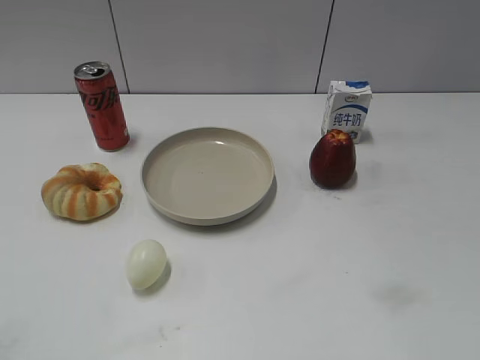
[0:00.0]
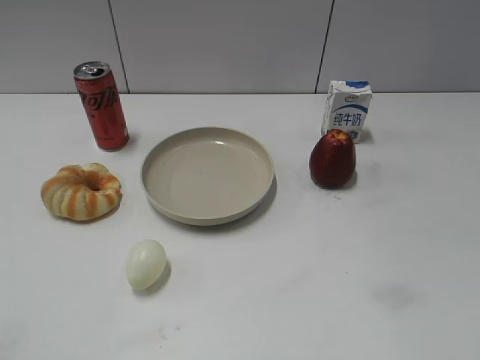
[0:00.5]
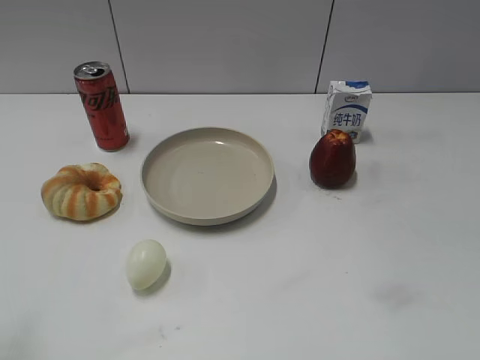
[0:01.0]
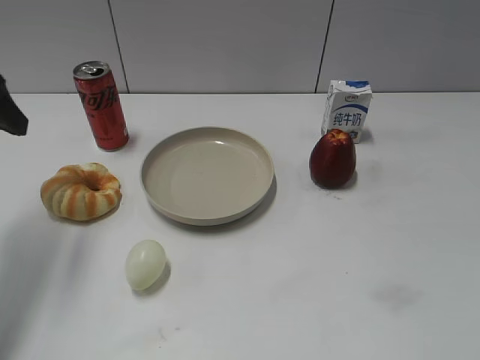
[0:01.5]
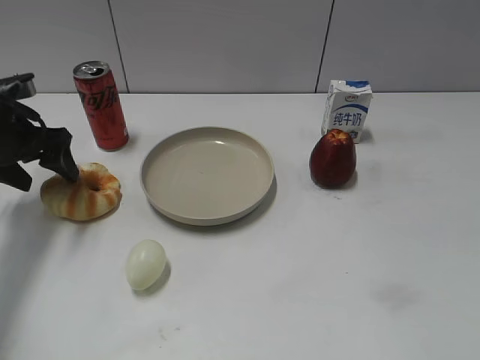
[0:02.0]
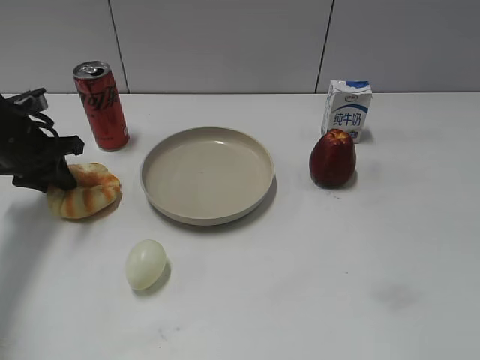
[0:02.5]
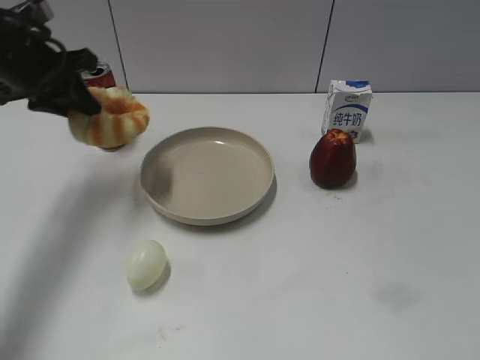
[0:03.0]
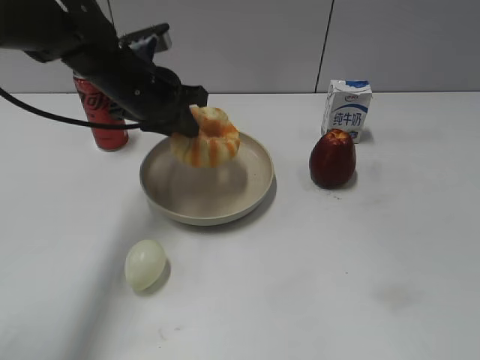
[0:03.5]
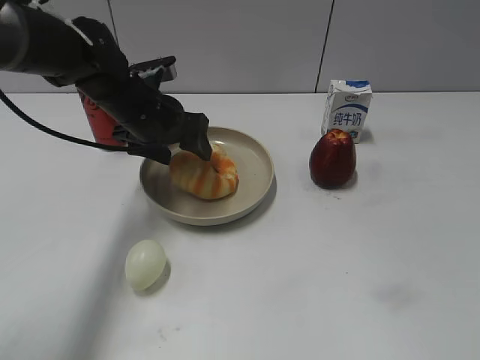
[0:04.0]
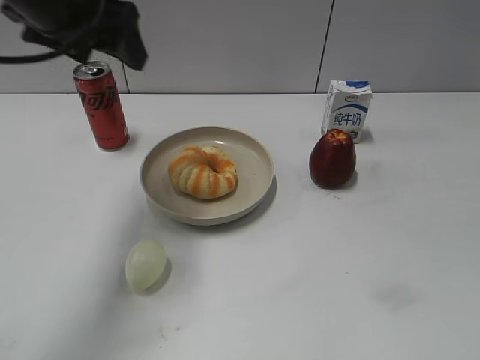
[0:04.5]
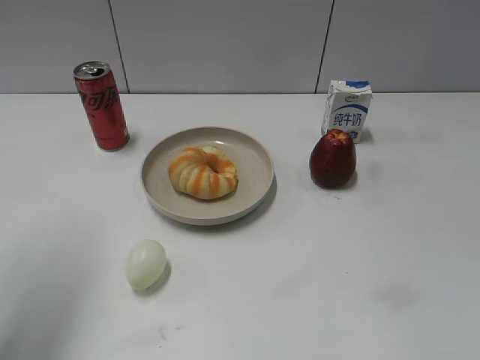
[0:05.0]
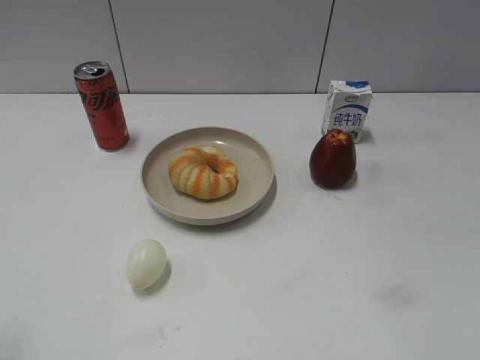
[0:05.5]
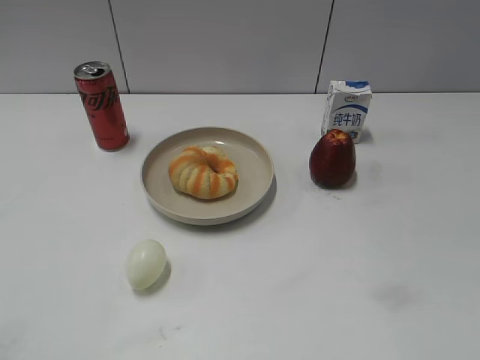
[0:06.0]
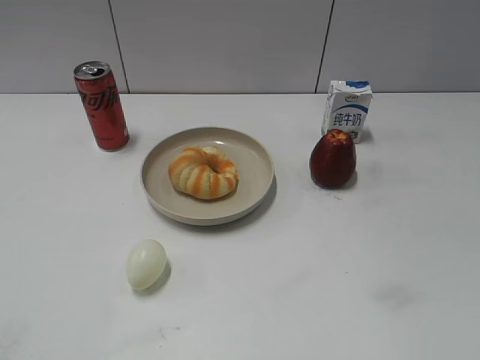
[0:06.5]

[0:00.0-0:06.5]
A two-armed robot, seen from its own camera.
Step, 0:01.0 to 0:02.0: Grasp the round bread with left gripper.
Step, 0:02.5 to 0:04.0: Place the round bread on the plate with left gripper.
0:02.0 to 0:04.5: The left gripper swings up and down, roughly 20 cm each way, with 2 reversals, and closes and opens again.
0:04.5 to 0:06.5: The left gripper heads backward and to the left, covering about 35 cm.

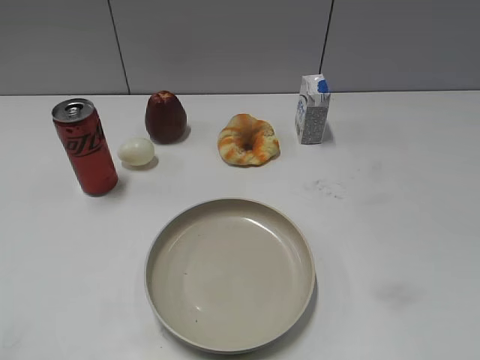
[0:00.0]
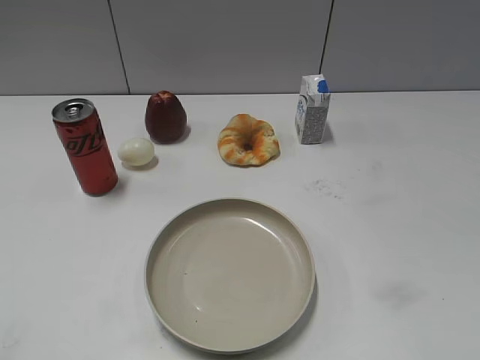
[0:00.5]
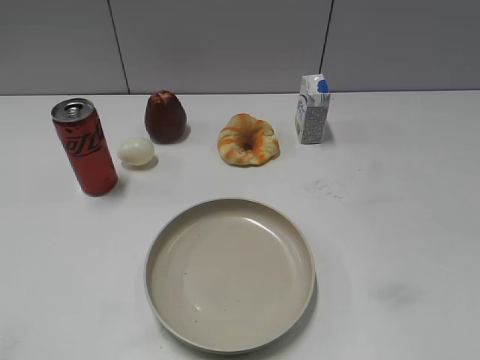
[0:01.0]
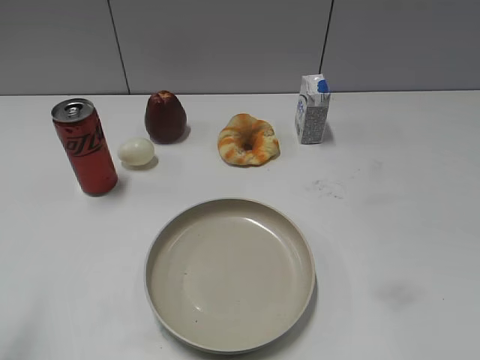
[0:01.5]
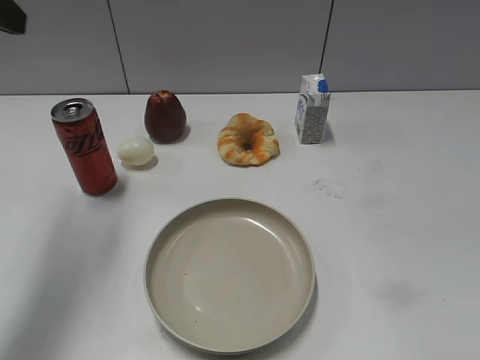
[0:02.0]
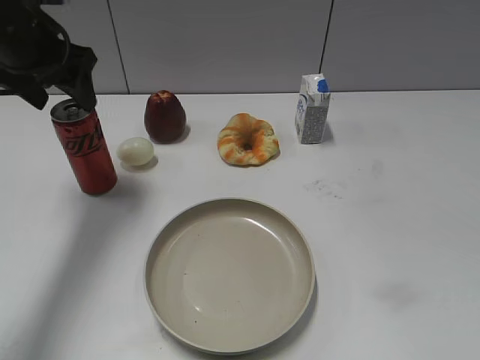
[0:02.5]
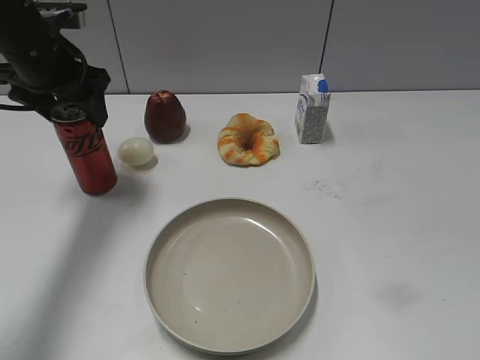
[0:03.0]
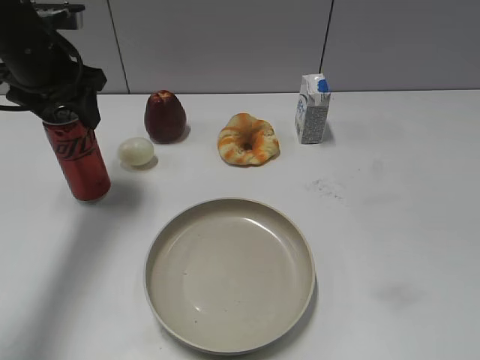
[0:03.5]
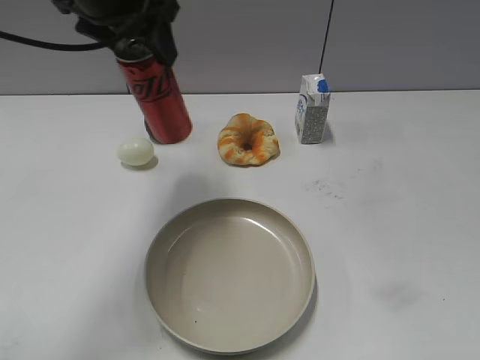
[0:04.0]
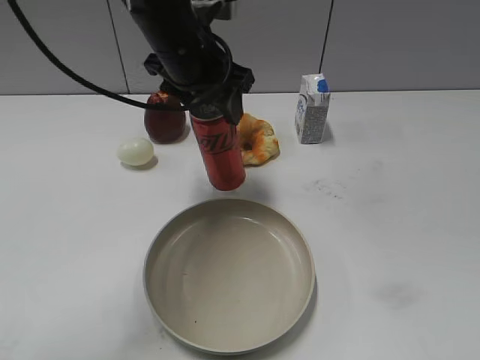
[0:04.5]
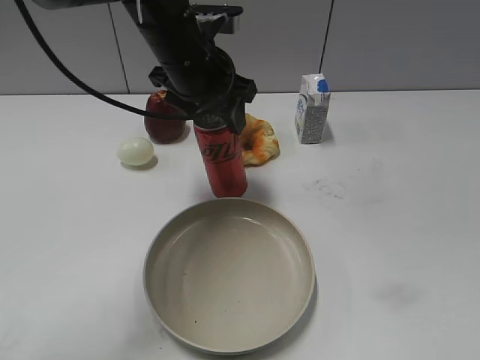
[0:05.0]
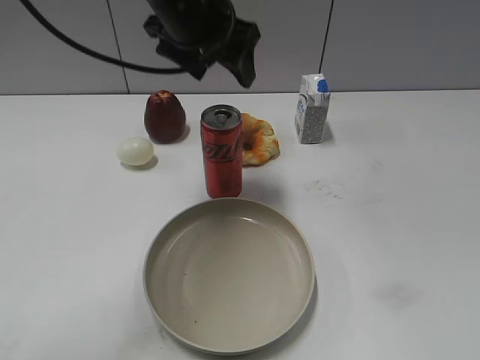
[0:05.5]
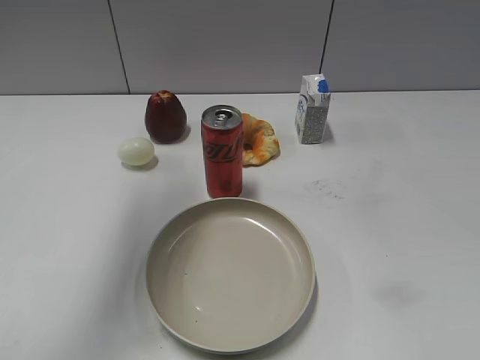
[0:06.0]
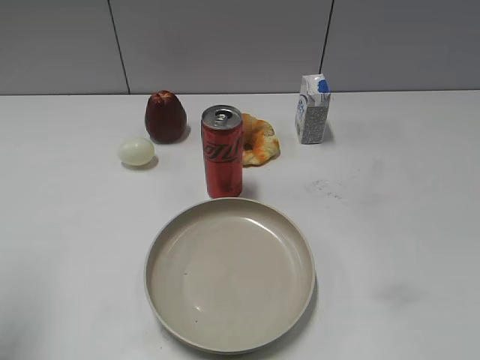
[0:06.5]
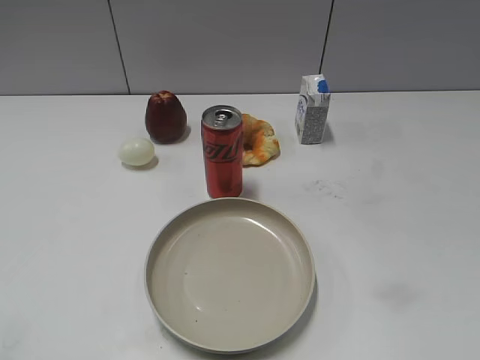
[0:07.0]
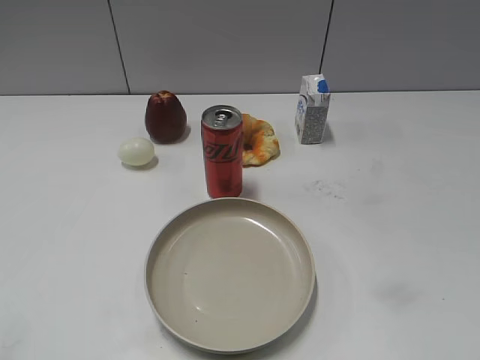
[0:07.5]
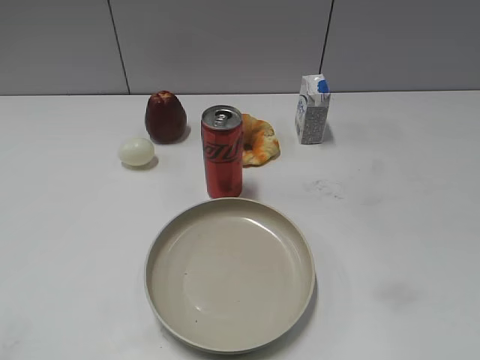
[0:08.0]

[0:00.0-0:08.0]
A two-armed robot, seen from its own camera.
Step, 0:01.0 to 0:03.0: Grasp the cola with left gripper.
Step, 0:03.5 to 0:05.0: Place the cola on the table with left gripper.
0:02.0 to 0:04.0: The left gripper heads to the right and forward, covering approximately 15 cm, and closes up.
0:04.0 to 0:06.0: The left gripper goes some 10 cm upward and to the left, and opens.
0:06.0 to 0:08.0: The left gripper goes roughly 40 cm backward, to the left and downward, and closes its fingers.
